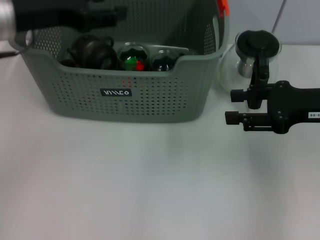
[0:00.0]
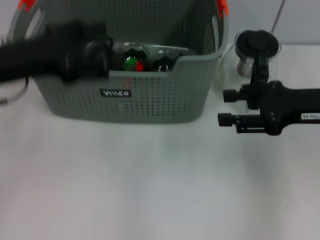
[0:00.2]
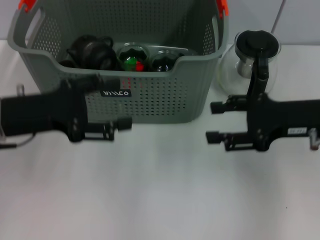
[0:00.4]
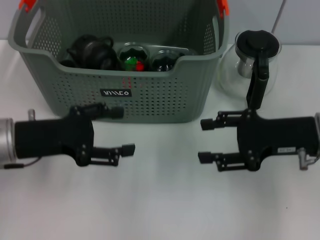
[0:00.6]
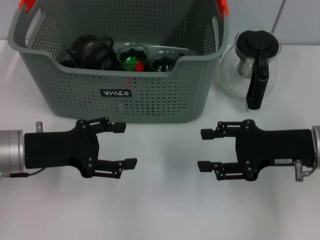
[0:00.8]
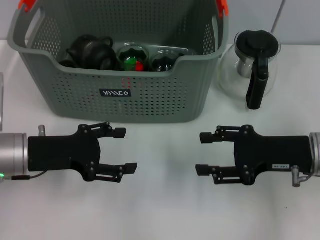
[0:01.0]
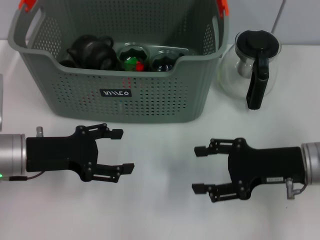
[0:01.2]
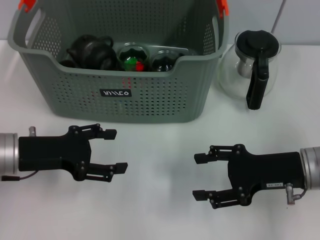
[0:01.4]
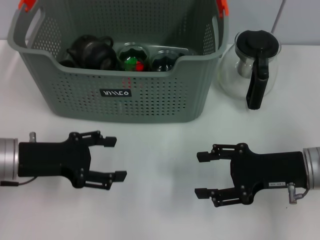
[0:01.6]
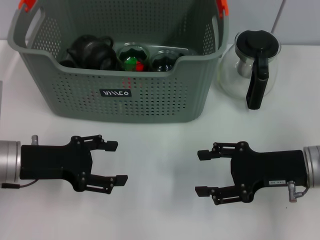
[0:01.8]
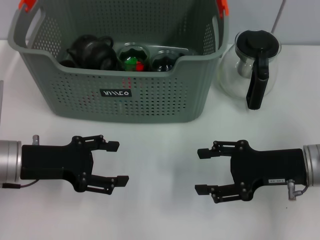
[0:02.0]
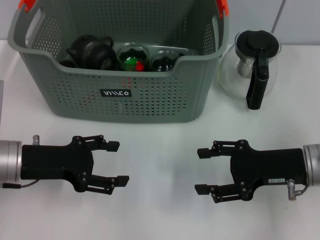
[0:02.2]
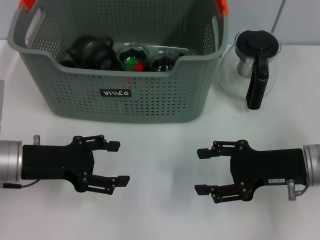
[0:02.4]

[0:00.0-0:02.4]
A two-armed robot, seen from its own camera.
Task of the whole recording: pick up the teacup on the table and place it into the storage bin, pick up the block on the table and place it into the storage bin.
0:00.0 to 0:01.2: The right gripper goes roughly 5 cm downward. Meanwhile the left gripper goes approximately 15 cm downward and backward.
0:01.2 to 0:02.4: Both grippers stay put.
